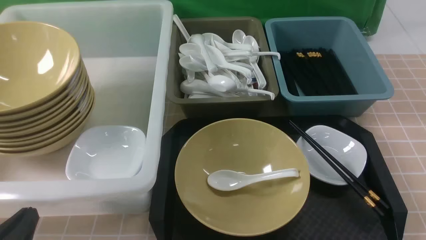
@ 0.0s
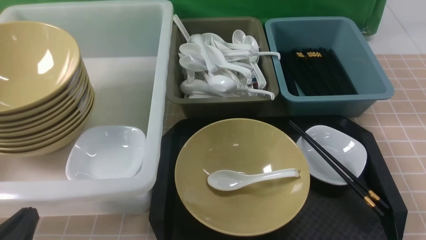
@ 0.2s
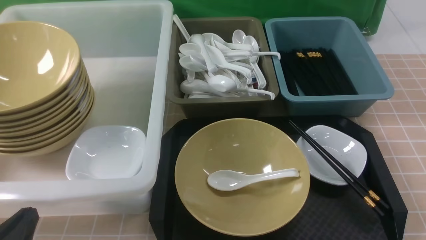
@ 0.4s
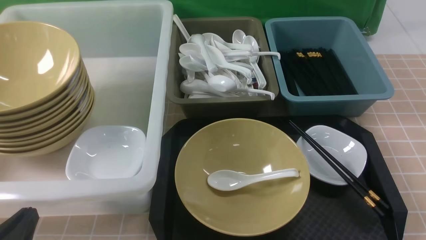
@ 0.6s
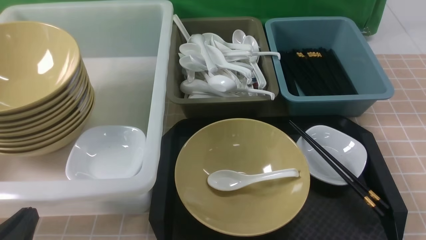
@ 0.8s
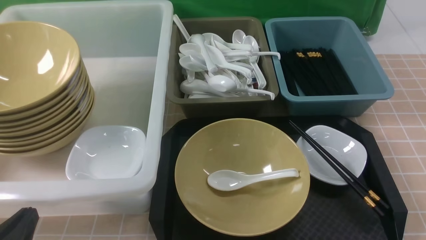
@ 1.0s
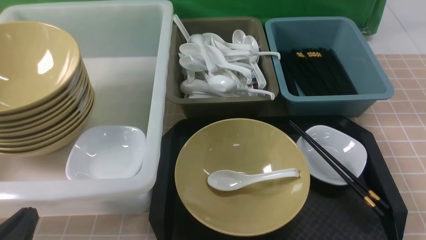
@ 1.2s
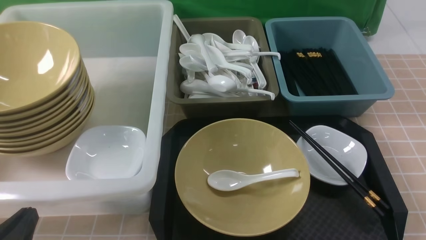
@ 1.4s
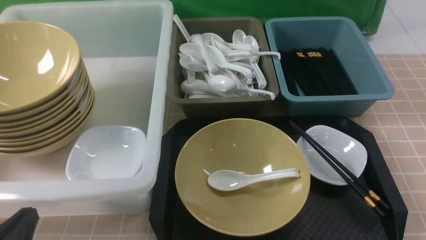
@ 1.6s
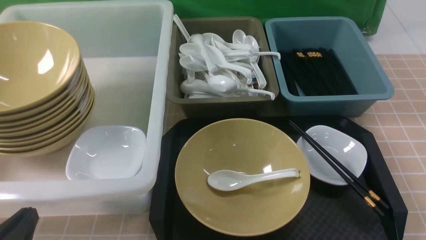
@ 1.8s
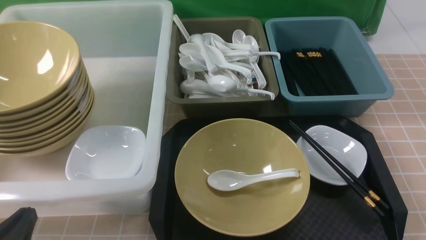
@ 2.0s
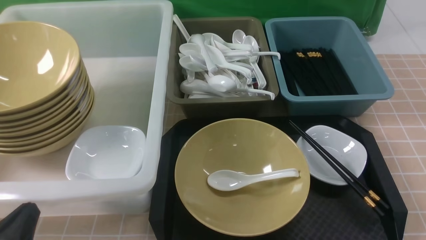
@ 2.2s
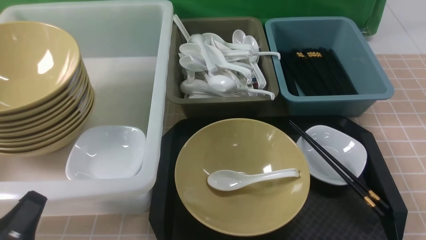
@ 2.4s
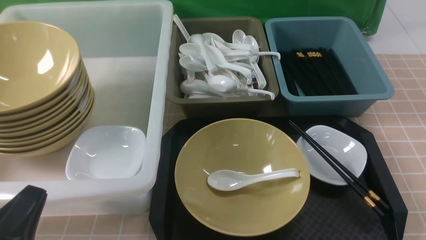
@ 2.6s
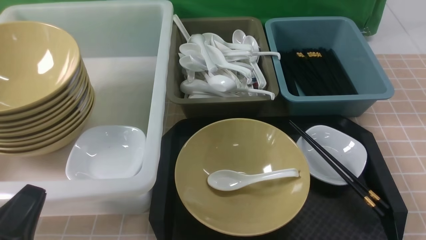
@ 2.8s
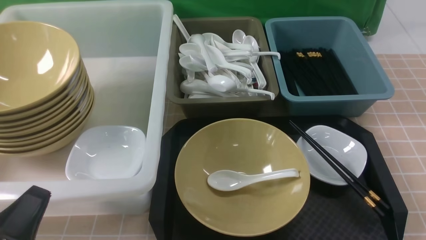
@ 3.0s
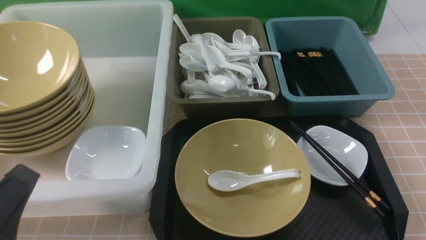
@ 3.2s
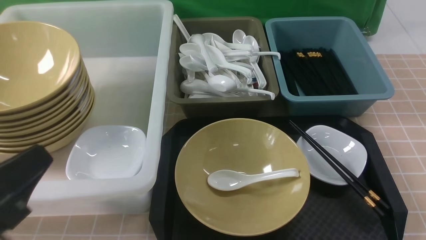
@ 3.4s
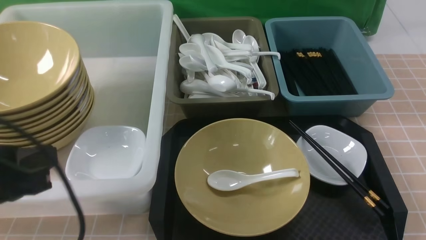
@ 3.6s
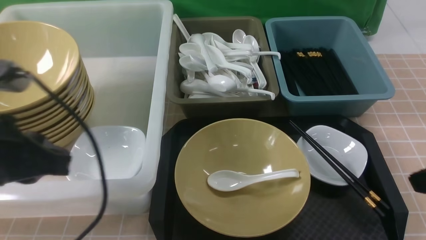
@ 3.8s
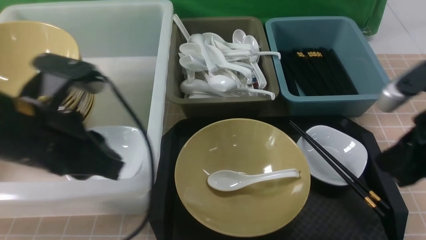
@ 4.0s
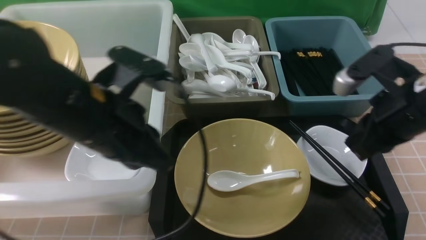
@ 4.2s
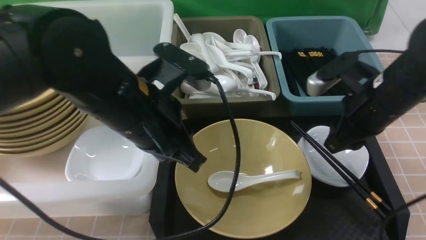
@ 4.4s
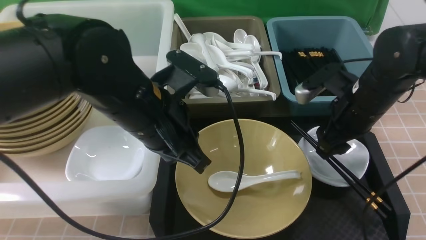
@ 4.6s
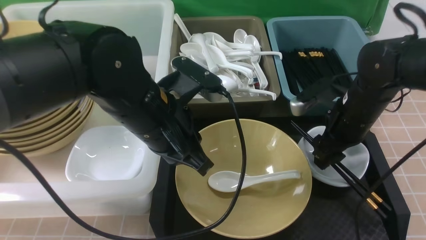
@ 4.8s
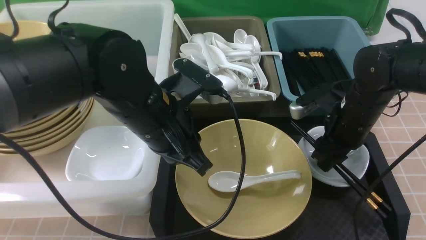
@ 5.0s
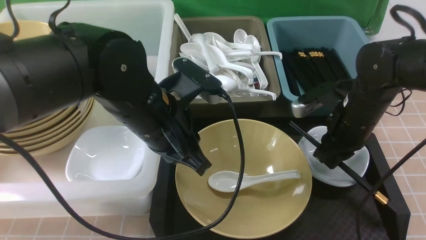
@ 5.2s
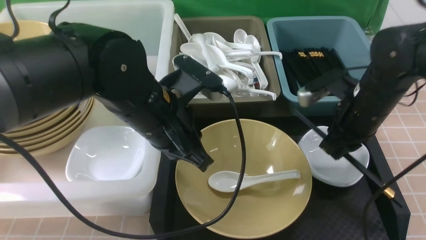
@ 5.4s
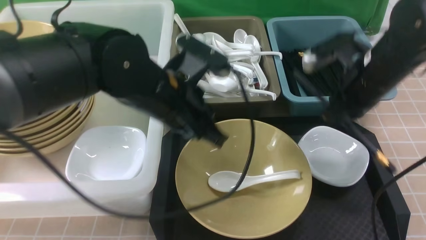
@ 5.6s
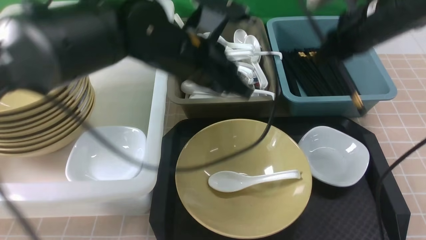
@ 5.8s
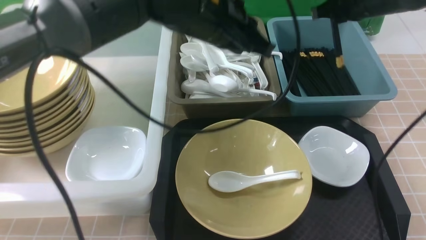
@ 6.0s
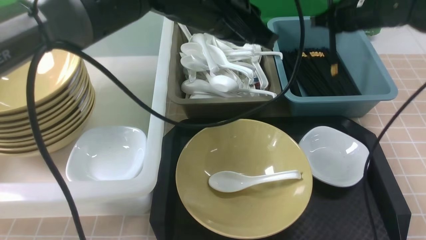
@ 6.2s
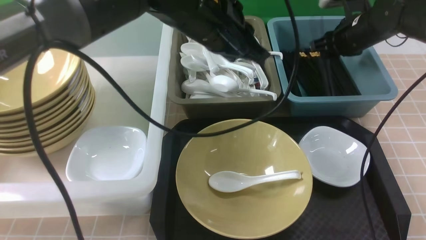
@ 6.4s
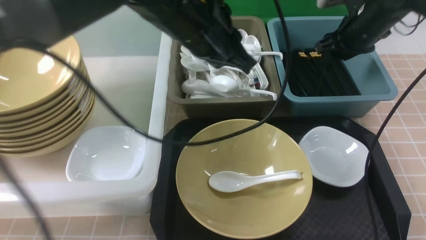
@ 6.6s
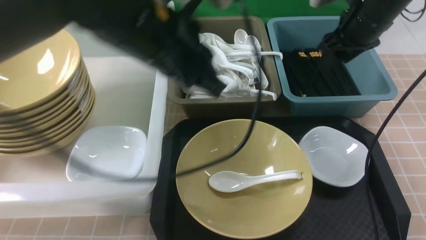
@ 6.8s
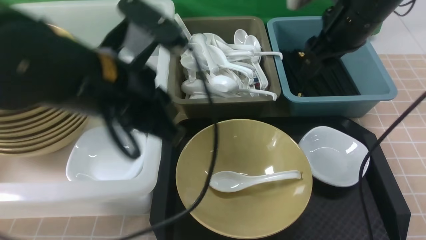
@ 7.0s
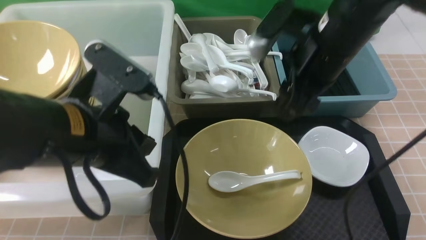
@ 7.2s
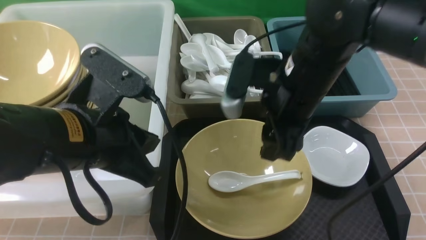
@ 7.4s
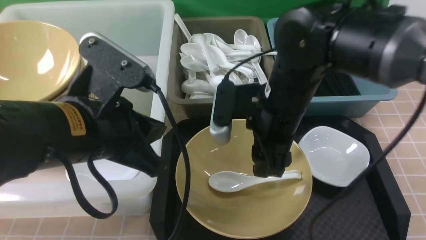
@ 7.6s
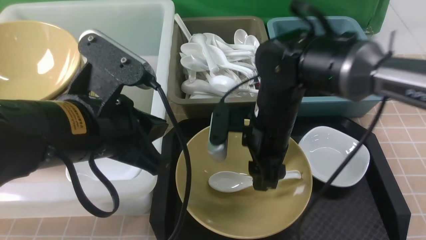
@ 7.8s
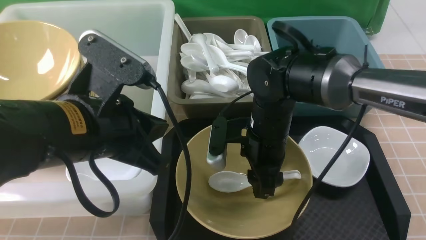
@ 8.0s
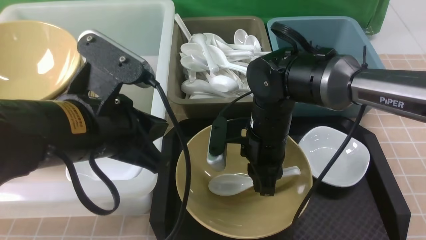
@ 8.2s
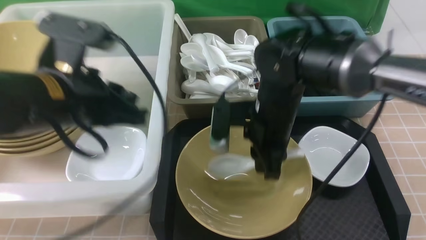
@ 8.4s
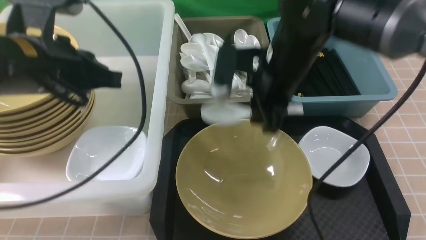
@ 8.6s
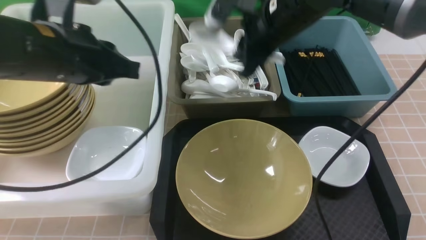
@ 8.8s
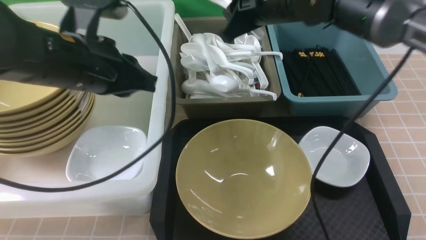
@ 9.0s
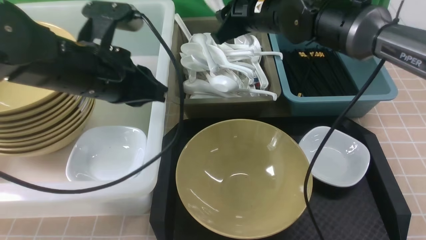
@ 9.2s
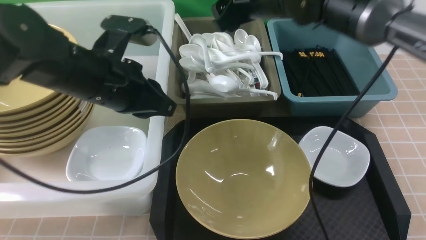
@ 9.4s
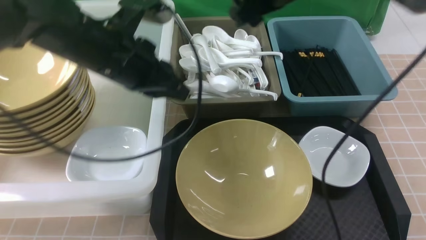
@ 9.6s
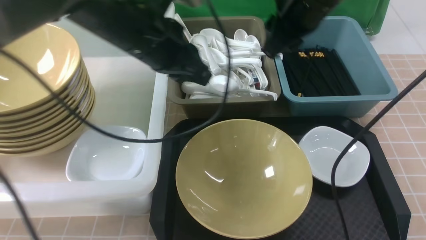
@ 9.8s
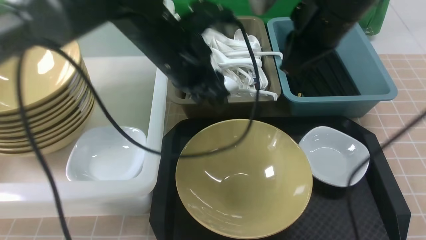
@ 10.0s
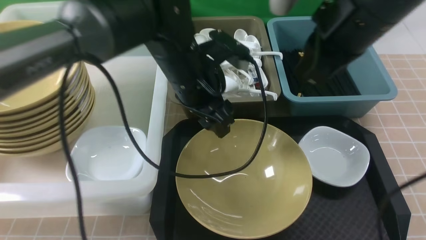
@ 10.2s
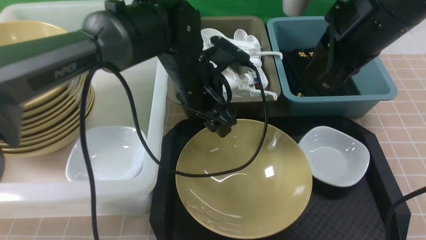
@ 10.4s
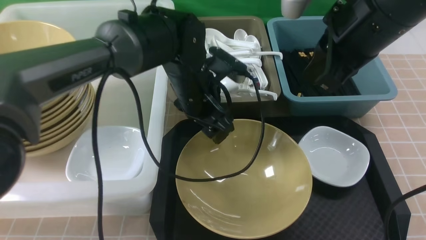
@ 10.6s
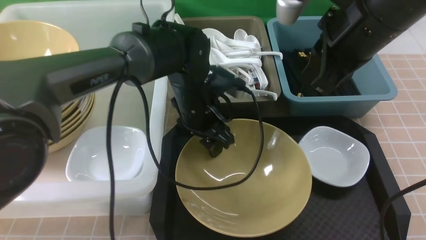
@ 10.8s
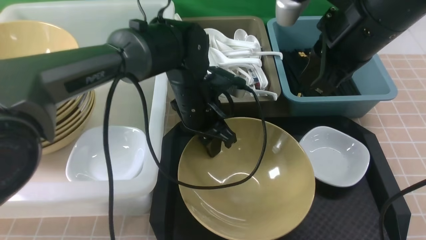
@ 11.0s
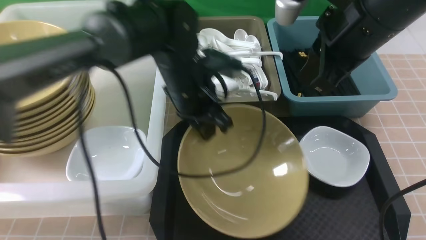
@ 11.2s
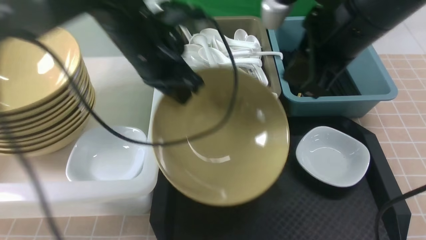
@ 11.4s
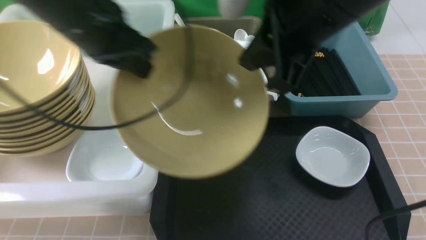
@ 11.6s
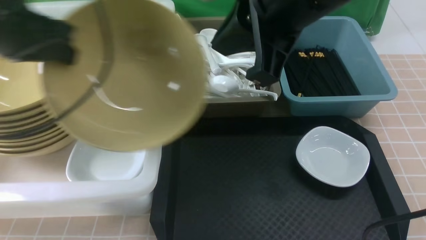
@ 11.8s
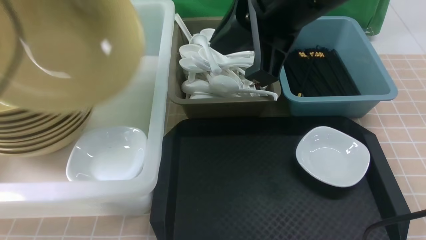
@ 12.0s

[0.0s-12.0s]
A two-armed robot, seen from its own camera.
Task of the whole recording: on brown table put chopsticks spoon bowls plates into blue grey white boxes.
Step, 0.0s to 5.4s: use the right arm to grab the chopsticks.
Step, 5.6s to 6.6s: use the right arm to put the chopsticks into the small storage box on the right.
Step, 7.0s to 8.4s: use the right arm to grab the soup spoon in the middle.
Step, 8.6s to 9.4s: use the right arm to put the soup spoon into the small storage box in the middle.
Step, 9.6s to 11.0s: use the left arm to grab the yellow noodle bowl on the left.
0.0s to 1.6s: The two grippers keep their place.
3.0s to 4.4s: The left gripper moves forward, to the right and upward, about 25 cm; the right gripper moves forward, roughly 25 cm, and closes and opens again.
4.4s to 6.0s: The right gripper is displaced forward by roughly 15 cm, and closes. Meanwhile the left gripper moves forward and to the right, roughly 15 cm.
6.0s to 7.6s: The right gripper shifts some 20 cm to the left and backward, and opens up. The left gripper moves backward and to the left, about 20 cm.
7.6s to 9.0s: The left gripper goes approximately 10 cm forward, while the right gripper moves forward and upward, about 15 cm, and closes its fingers.
9.0s to 10.4s: The right gripper shifts some 20 cm backward, to the right and upward, and closes. Meanwhile the left gripper heads to the right, downward and forward, covering approximately 15 cm, and opens up.
10.4s to 12.0s: The left gripper shifts about 30 cm to the left and upward, and closes its fingers. Meanwhile the right gripper travels to the left and upward by some 10 cm.

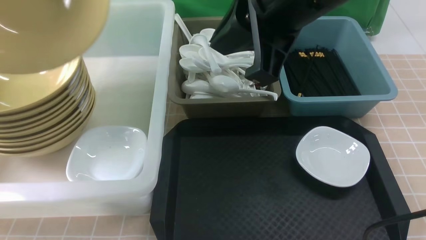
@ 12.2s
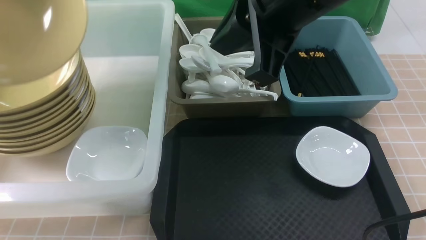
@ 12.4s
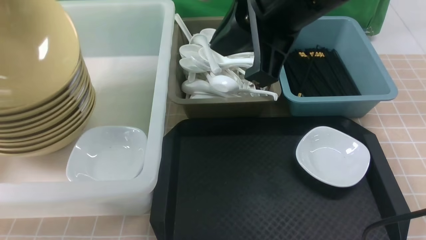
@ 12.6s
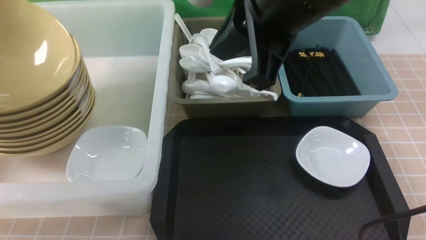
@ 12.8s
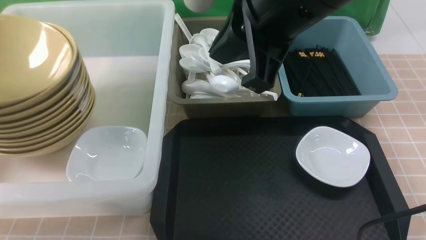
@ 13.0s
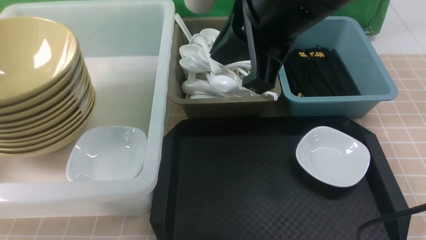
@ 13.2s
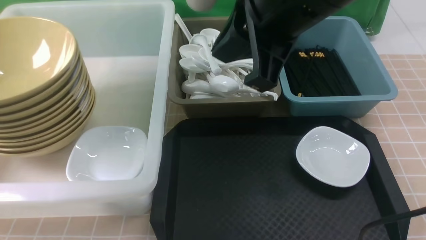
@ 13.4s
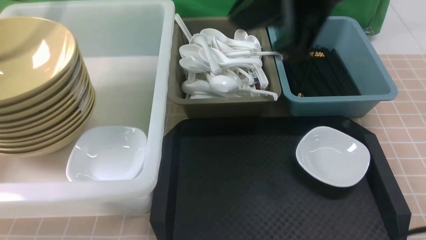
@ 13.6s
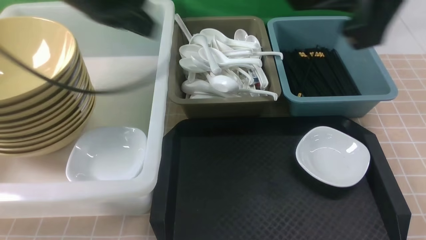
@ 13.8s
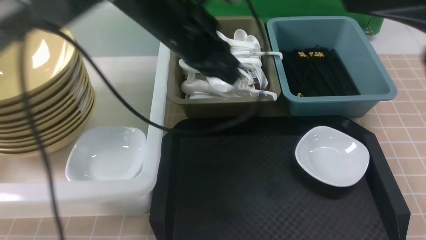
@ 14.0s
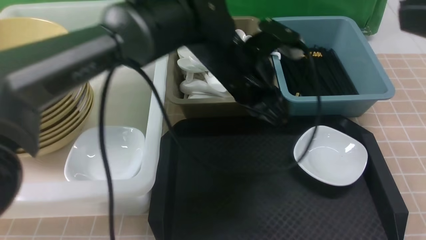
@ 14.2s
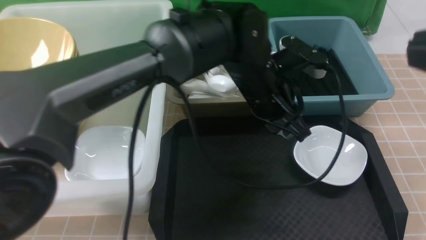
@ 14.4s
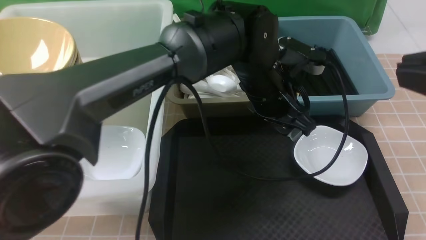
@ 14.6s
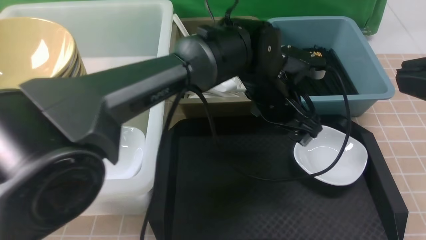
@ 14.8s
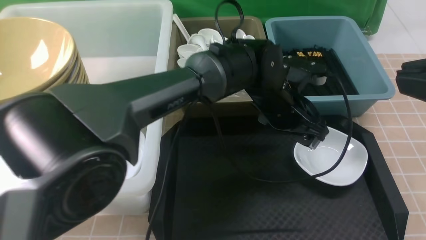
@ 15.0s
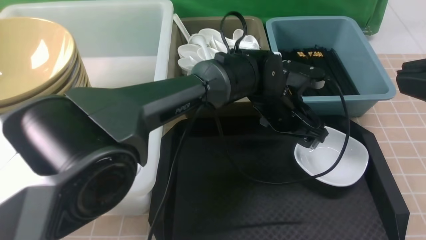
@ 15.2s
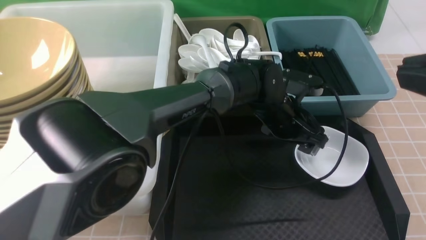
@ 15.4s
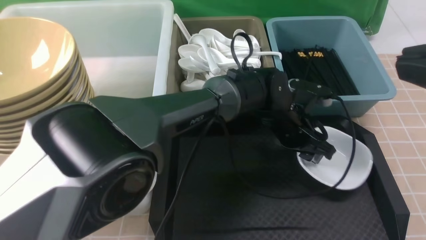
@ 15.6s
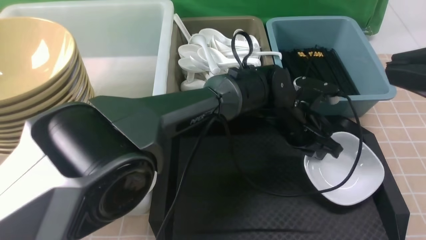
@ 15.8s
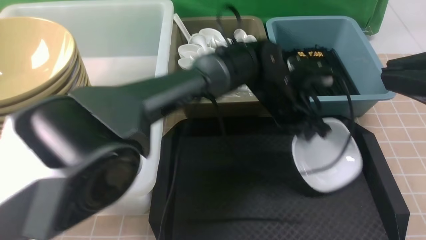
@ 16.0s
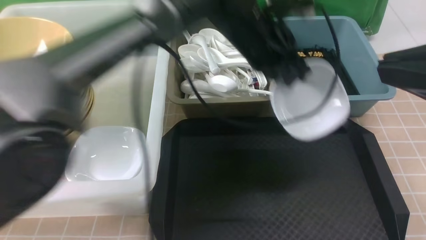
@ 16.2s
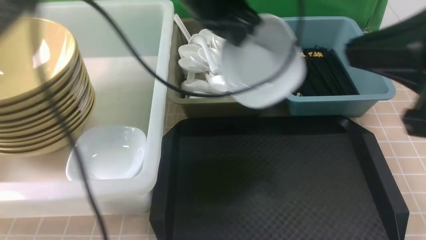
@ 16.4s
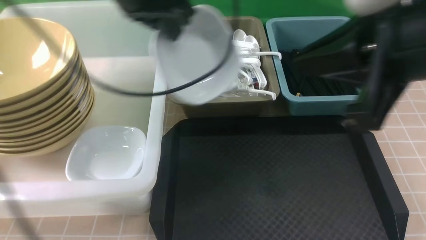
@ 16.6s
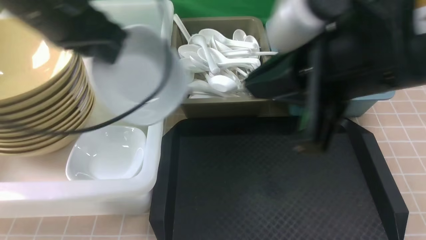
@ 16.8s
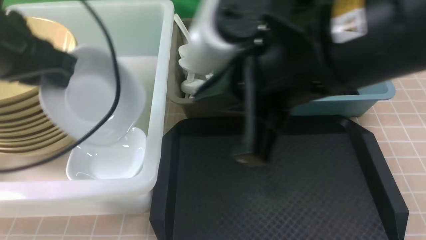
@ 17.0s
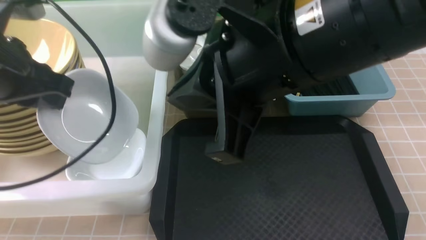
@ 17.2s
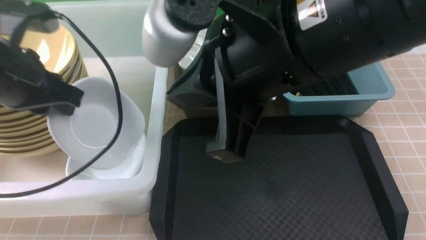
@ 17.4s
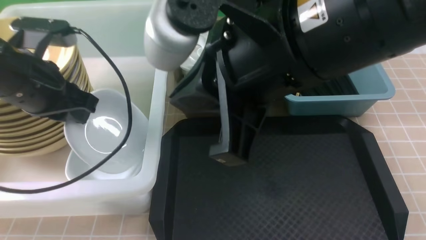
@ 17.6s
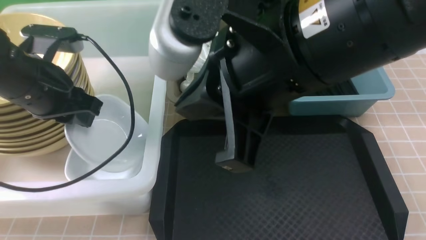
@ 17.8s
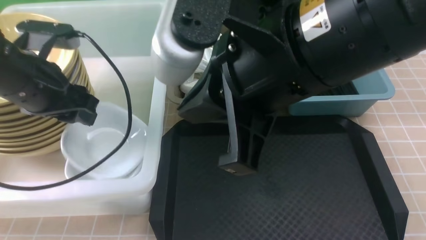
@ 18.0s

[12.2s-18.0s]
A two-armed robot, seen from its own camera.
Task of the whole recording: on brown table put chopsticks spoon bowls plates into blue grey white boxes.
Step, 13.2s to 15.8s: use the left arm to grab the plate.
12.2s to 13.6s: The left gripper travels to the right and forward by about 15 cm, and opens its fingers; the right gripper moves approximately 5 cm.
13.6s to 15.0s: The right gripper shifts about 15 cm to the right and backward. The left gripper goes about 40 cm to the right and downward, and opens up.
15.0s to 16.6s: The right gripper moves to the left and forward, about 10 cm. Meanwhile the left gripper is displaced to the left and upward by roughly 30 cm, and closes its fingers.
16.6s to 18.0s: The left gripper is displaced to the left and downward by some 15 cm, and opens up. Meanwhile the right gripper is displaced to the left by approximately 10 cm.
